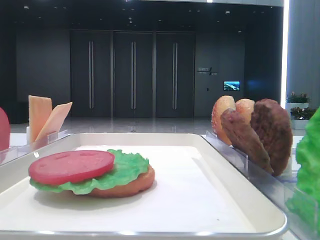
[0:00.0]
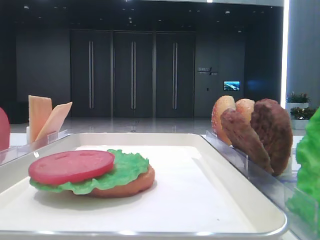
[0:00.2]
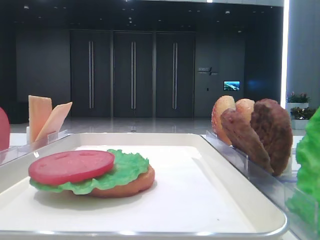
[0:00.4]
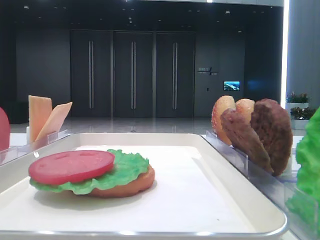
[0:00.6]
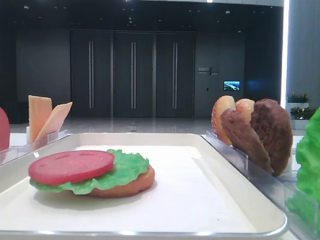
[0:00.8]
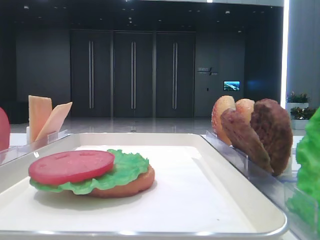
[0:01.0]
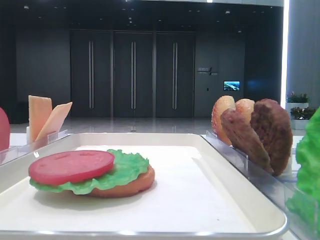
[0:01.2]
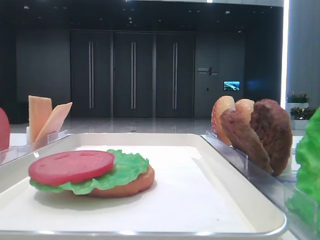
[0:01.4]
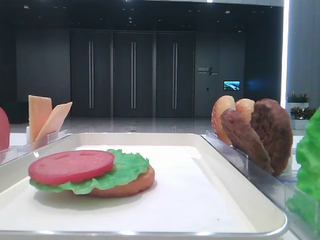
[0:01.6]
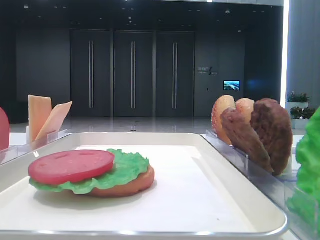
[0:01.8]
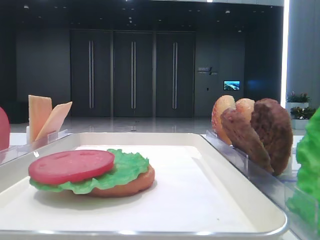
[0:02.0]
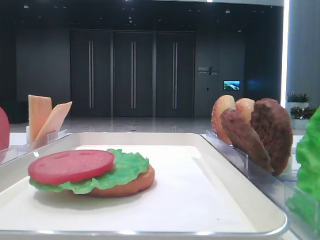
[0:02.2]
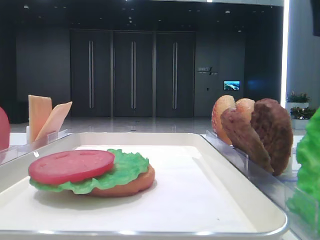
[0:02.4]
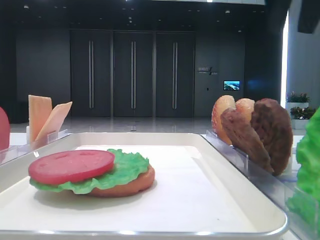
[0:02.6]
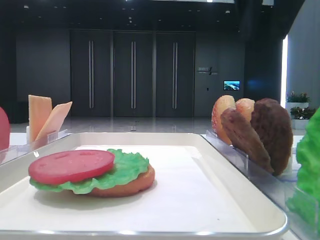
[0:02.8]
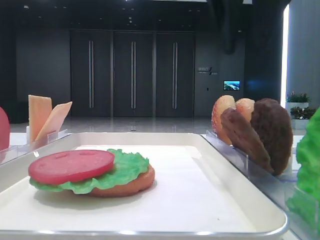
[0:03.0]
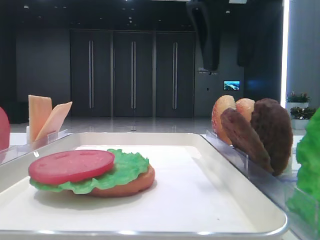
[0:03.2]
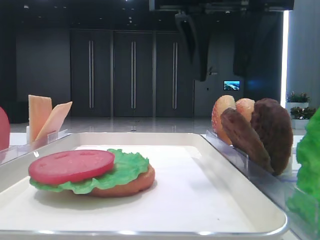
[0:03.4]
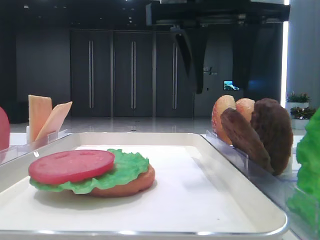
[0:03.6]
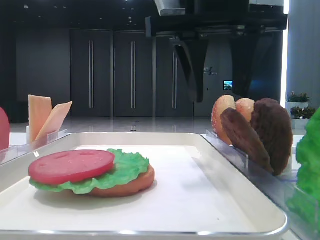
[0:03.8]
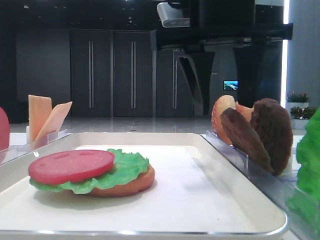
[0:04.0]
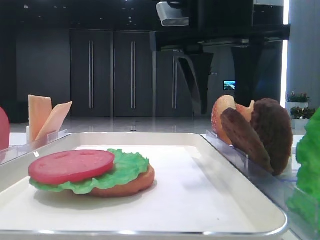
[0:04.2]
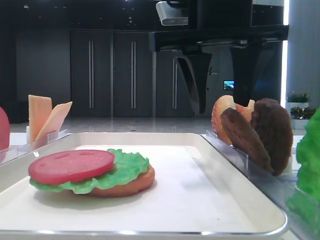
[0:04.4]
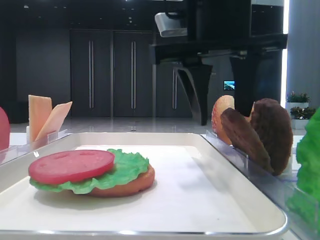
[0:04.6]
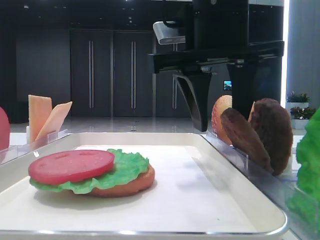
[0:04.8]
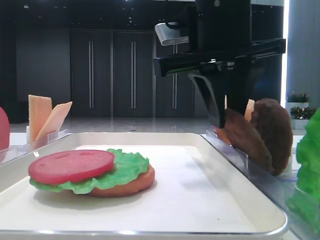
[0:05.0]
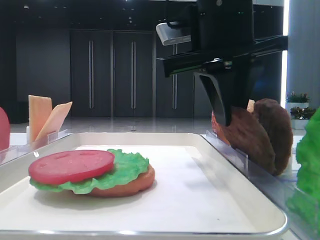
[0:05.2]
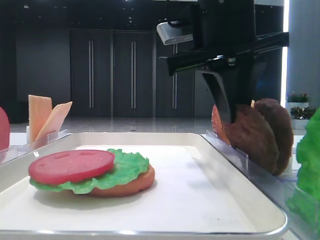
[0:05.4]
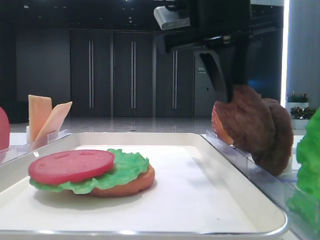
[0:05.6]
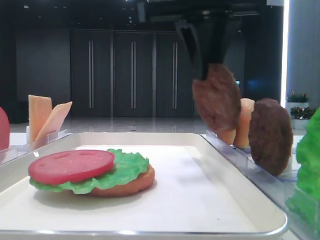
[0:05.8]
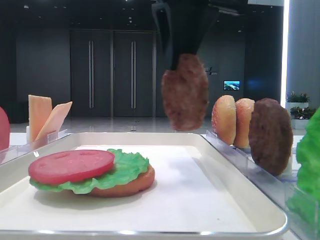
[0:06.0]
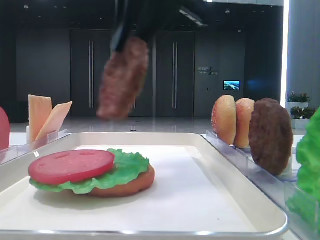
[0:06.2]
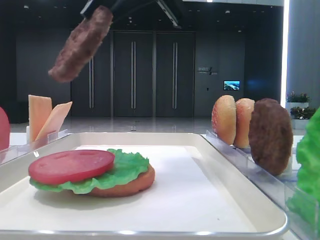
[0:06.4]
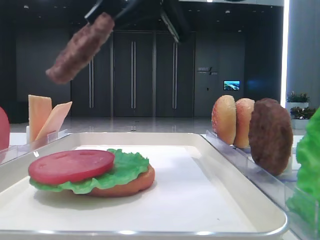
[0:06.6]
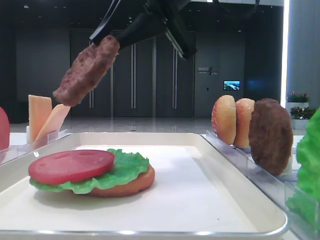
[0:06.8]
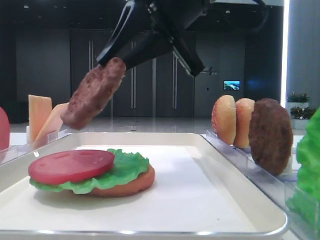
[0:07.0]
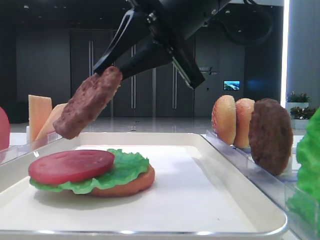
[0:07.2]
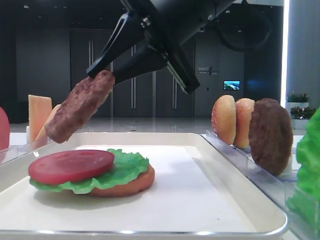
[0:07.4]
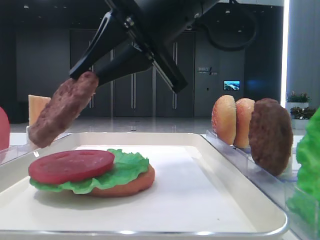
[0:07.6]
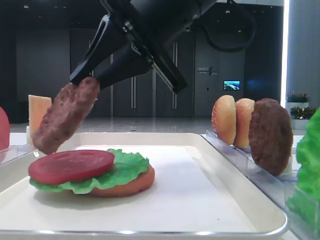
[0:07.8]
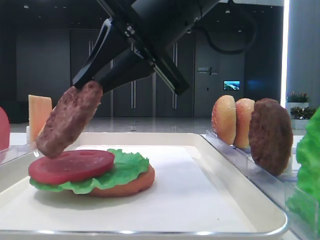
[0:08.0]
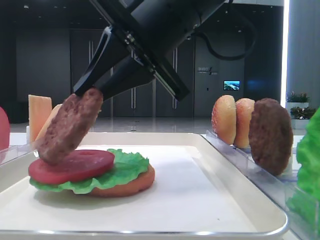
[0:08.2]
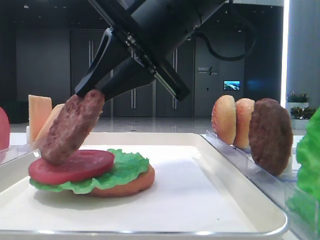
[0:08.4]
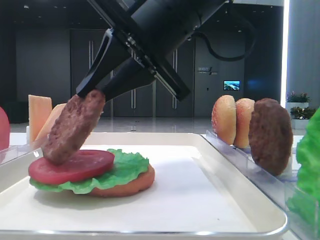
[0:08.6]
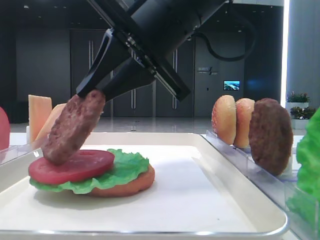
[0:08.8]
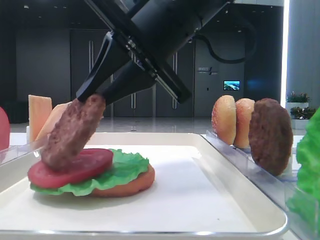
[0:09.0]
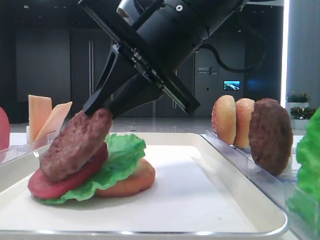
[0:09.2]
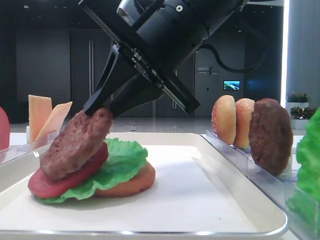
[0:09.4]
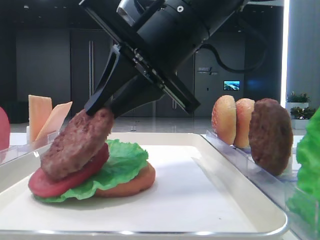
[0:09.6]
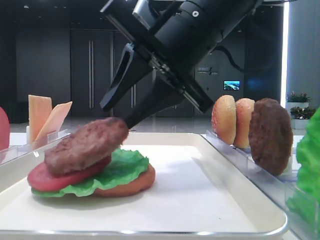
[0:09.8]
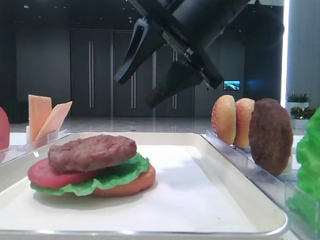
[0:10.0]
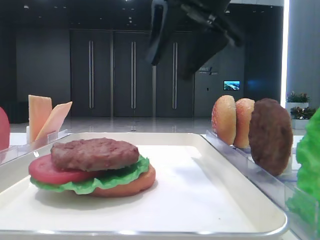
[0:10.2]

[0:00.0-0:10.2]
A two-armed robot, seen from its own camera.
Step, 0:00.0 to 0:05.0: Grab the patty with the right hand.
Step, 0:05.2 to 0:10.0: Place the patty on the tomato slice with the right hand.
0:01.4 to 0:03.0: The left gripper closes up. The right gripper travels forward and to the left by approximately 30 cm.
0:03.0 to 0:04.4: The right gripper heads downward, covering approximately 5 cm.
0:04.4 to 0:05.8: The right gripper closes its fingers.
0:07.2 to 0:08.8: There are only small adjustments of the grippers.
0:08.8 to 0:10.2: The right gripper heads upward and to the right, covering roughly 10 cm, and opens up.

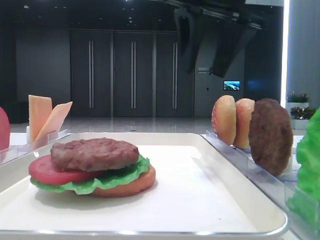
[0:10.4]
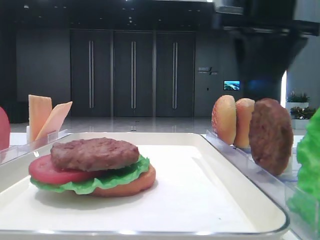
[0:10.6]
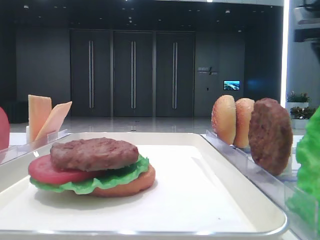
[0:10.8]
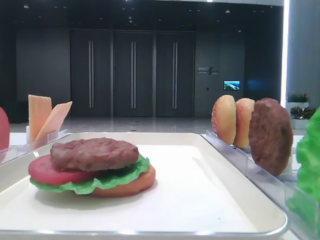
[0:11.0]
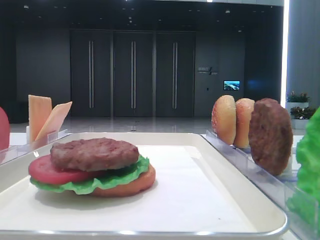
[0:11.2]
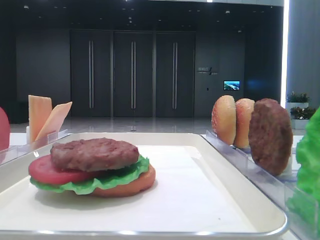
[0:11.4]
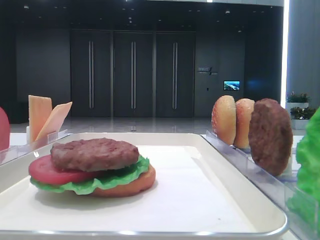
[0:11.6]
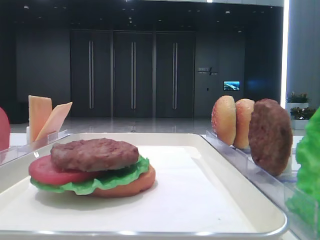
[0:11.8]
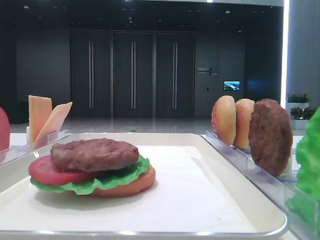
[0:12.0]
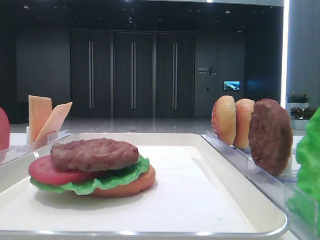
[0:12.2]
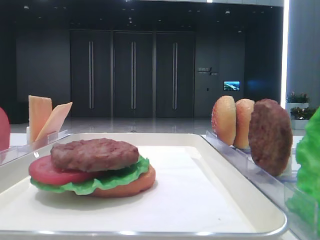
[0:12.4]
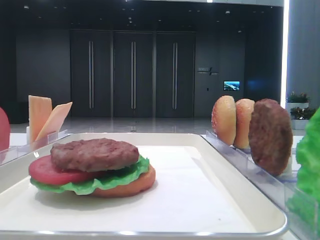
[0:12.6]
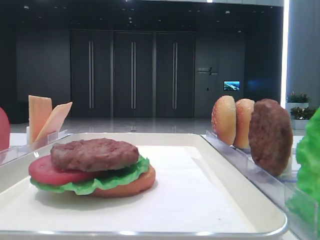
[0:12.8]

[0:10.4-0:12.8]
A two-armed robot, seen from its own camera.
0:10.4 to 0:11.6: The right gripper travels to the right and backward by approximately 30 cm.

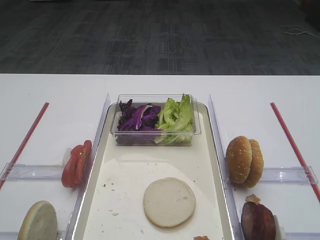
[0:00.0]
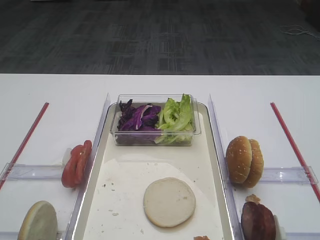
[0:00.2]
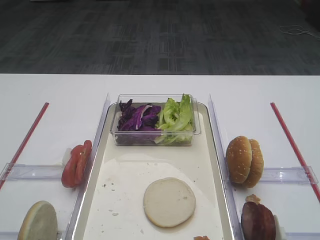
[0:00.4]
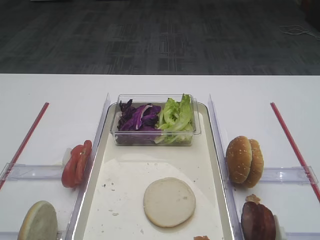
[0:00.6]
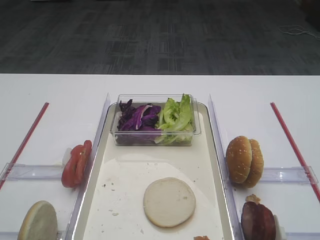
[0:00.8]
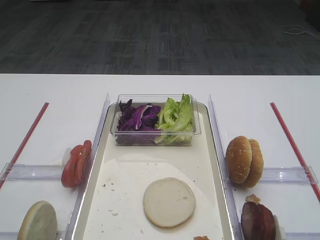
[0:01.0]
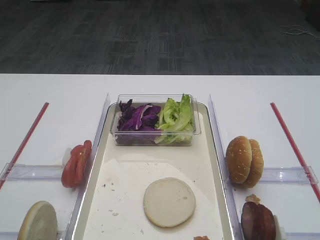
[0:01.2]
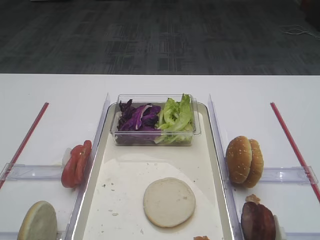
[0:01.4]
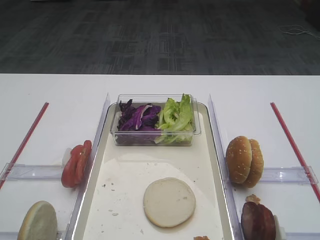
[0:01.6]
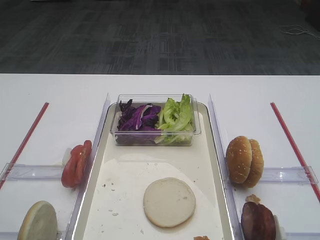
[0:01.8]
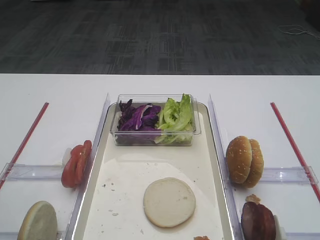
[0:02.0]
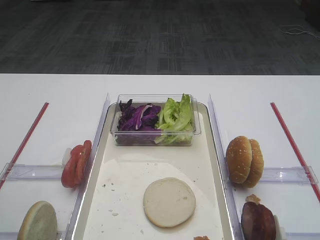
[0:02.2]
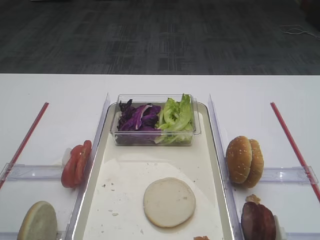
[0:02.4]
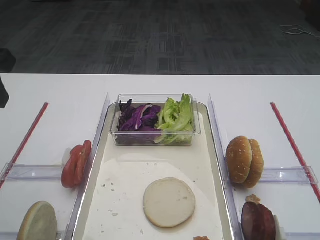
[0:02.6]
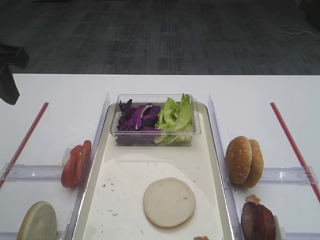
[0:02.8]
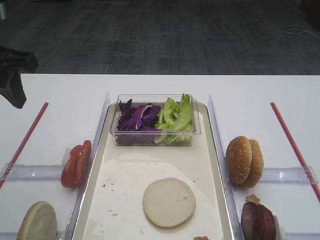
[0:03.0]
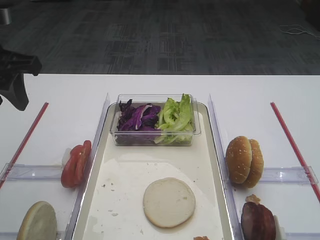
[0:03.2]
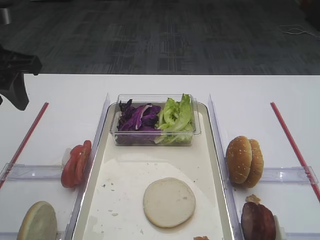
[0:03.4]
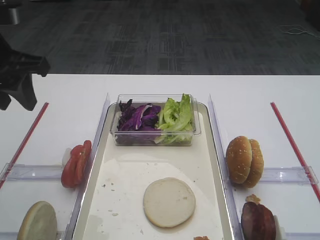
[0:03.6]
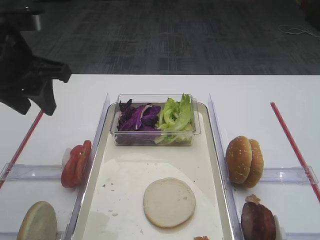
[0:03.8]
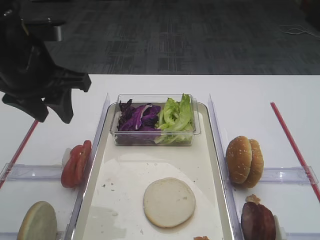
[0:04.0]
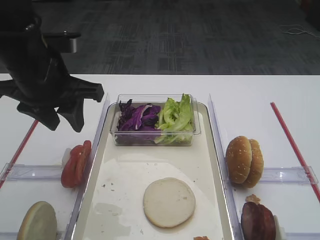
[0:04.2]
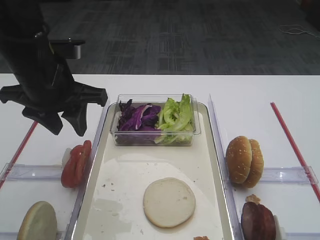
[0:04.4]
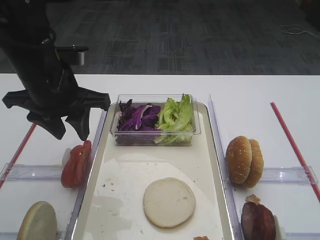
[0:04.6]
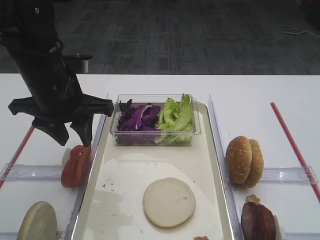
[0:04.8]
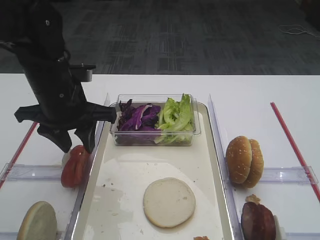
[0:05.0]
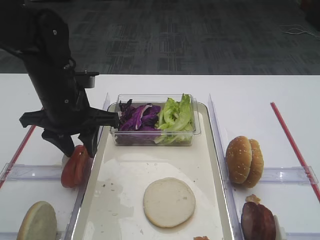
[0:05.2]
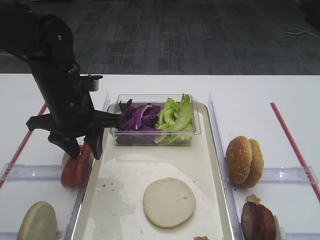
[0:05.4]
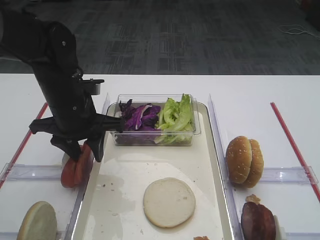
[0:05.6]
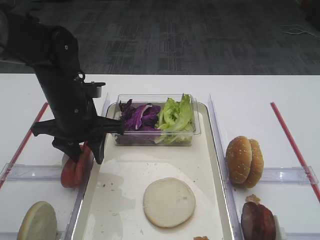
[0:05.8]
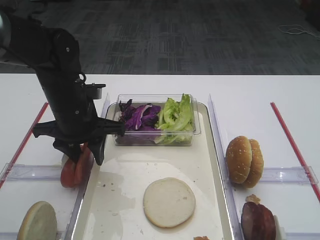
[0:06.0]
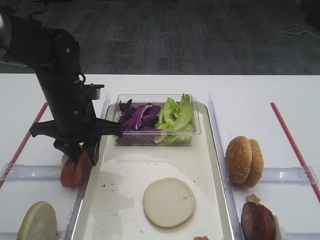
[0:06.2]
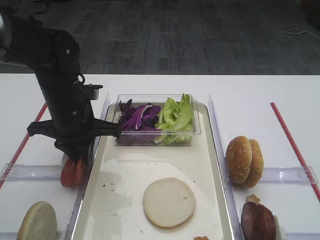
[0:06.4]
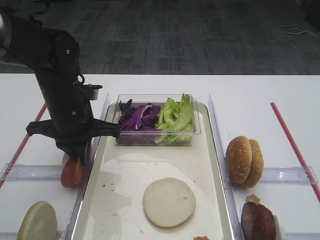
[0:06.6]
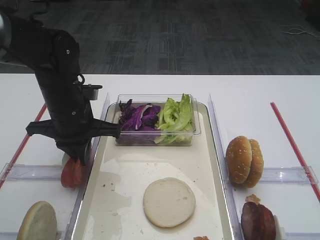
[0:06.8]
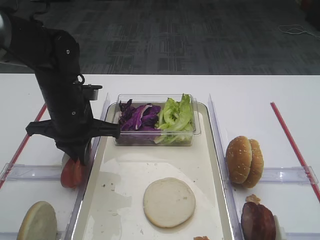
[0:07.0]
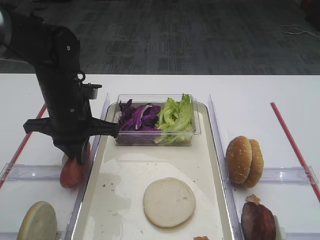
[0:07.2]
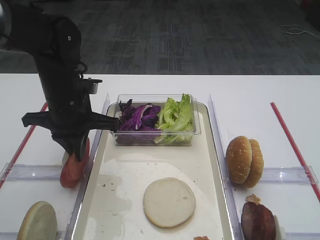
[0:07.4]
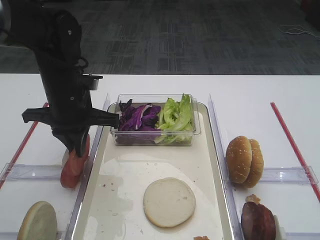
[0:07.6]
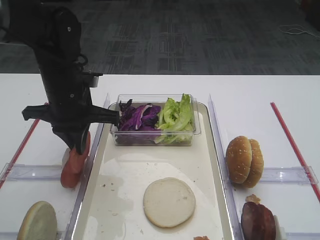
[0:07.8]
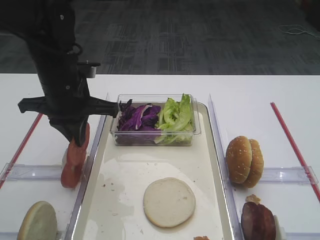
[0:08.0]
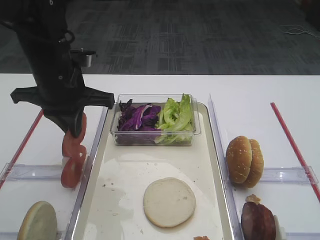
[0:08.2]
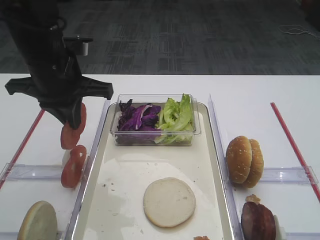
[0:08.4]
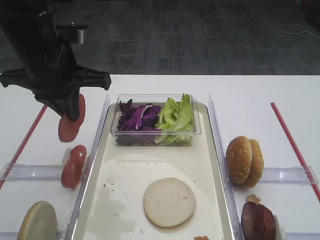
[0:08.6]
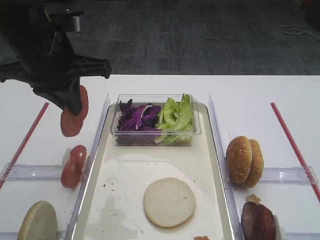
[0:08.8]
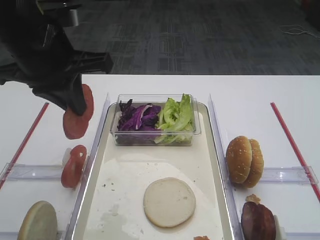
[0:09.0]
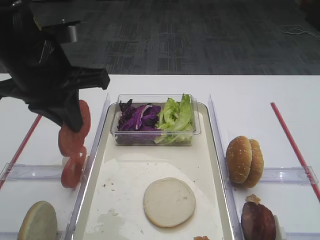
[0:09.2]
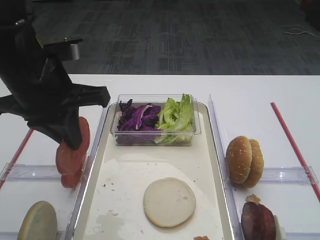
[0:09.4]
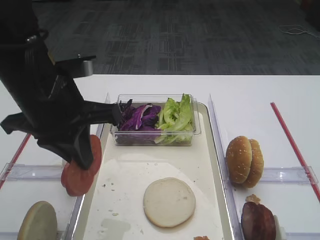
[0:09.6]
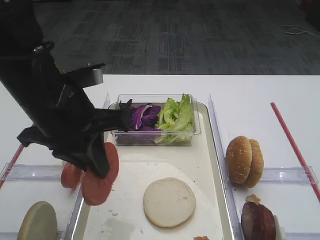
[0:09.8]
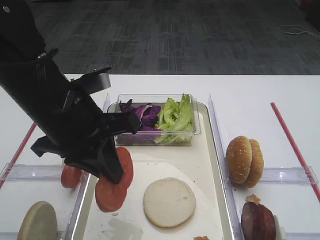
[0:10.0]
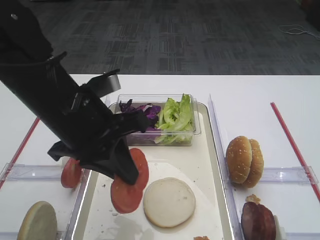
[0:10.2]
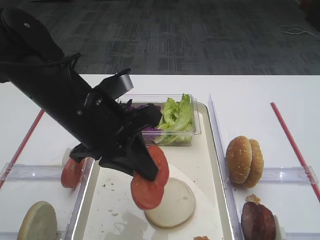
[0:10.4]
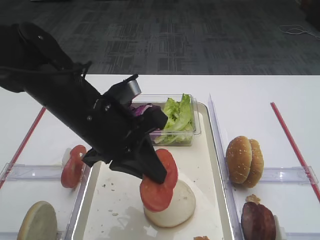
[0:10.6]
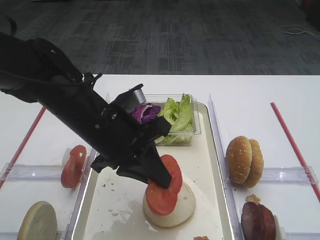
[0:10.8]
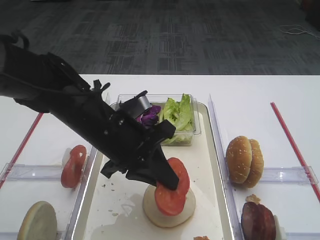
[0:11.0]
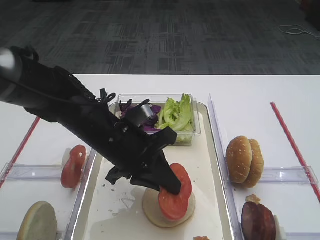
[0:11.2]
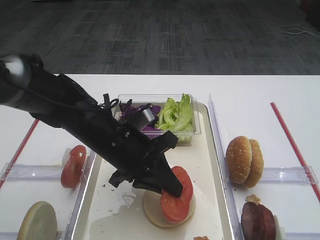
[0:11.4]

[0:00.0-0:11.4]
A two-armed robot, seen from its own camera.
Step, 0:00.0 to 0:08.2: Pick up the tomato slice with the left gripper.
0:01.4 to 0:02.8: The left gripper travels forward by about 25 cm.
0:02.8 to 0:04.2: The left gripper heads to the right and downward, covering roughly 10 cm.
0:04.2 to 0:05.6: The left gripper shifts roughly 10 cm downward.
0:05.6 to 0:07.2: The left gripper closes.
0:07.2 to 0:08.6: The left gripper shifts about 10 cm upward.
0:08.6 to 0:10.0: The left gripper goes about 5 cm backward.
0:10.0 to 0:11.4: The left gripper goes about 10 cm downward and to the right.
